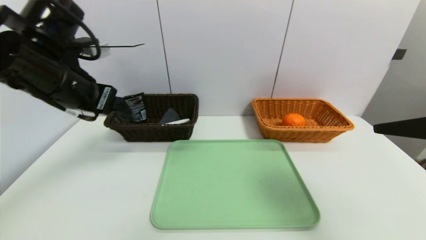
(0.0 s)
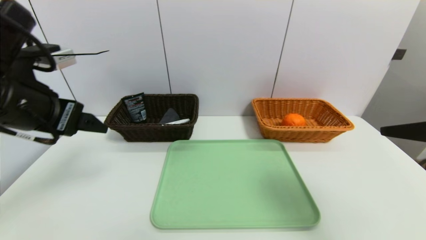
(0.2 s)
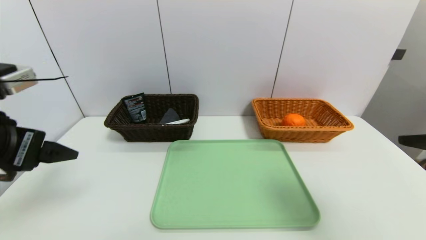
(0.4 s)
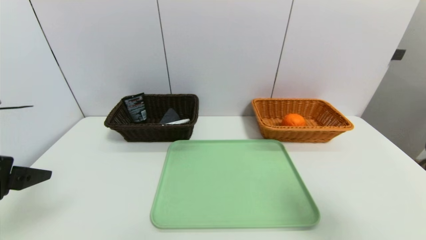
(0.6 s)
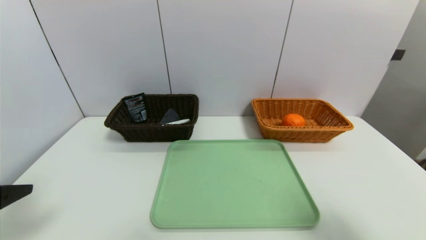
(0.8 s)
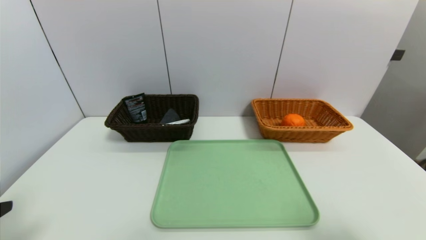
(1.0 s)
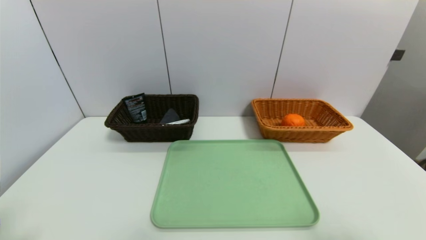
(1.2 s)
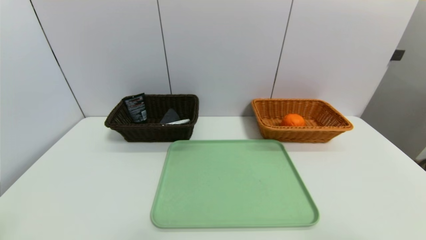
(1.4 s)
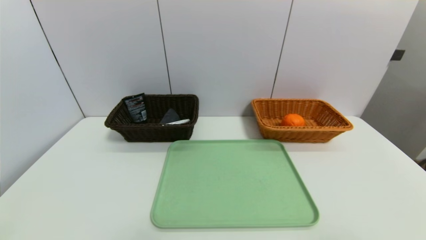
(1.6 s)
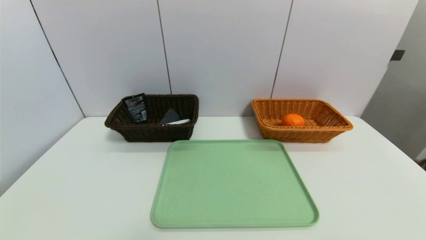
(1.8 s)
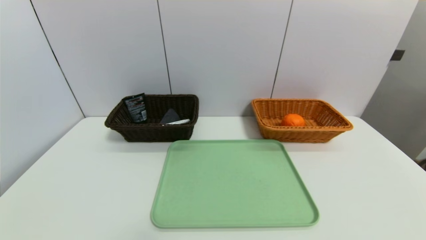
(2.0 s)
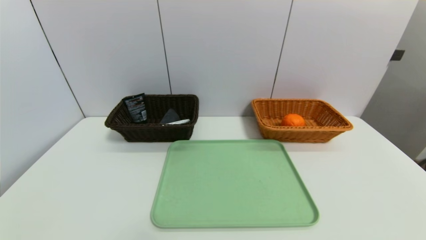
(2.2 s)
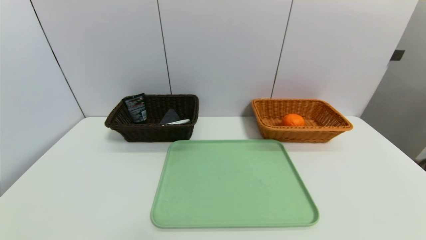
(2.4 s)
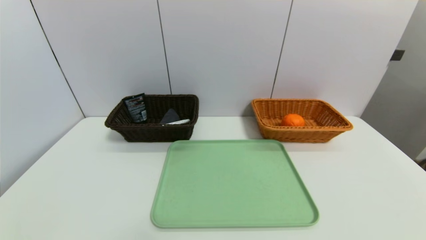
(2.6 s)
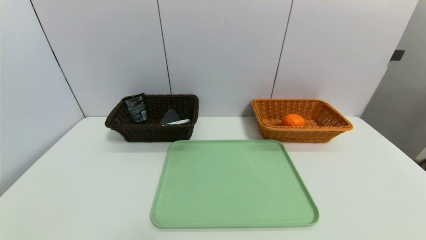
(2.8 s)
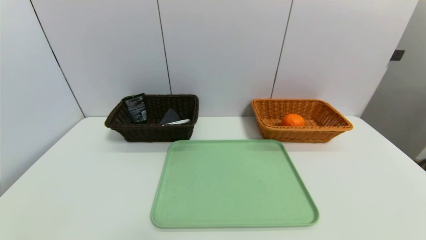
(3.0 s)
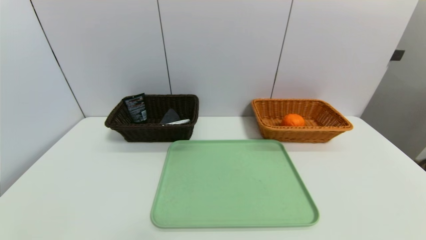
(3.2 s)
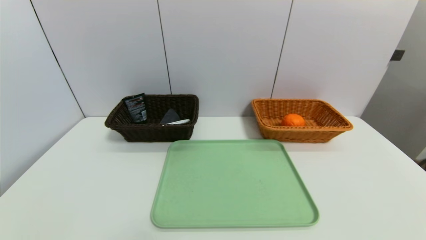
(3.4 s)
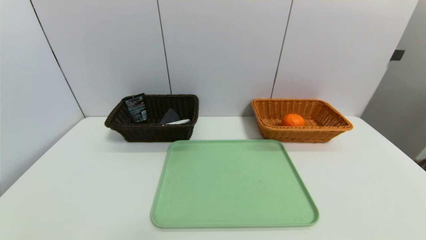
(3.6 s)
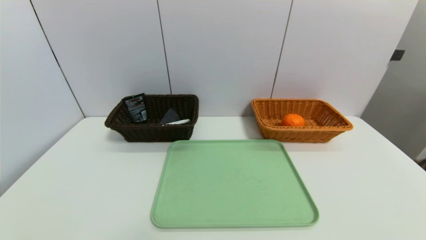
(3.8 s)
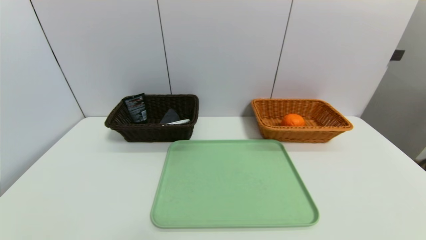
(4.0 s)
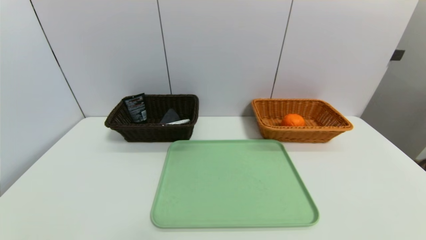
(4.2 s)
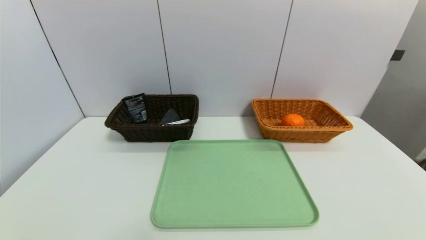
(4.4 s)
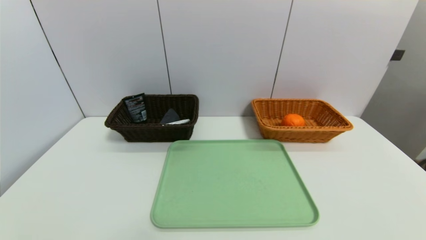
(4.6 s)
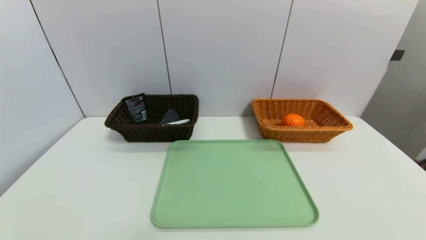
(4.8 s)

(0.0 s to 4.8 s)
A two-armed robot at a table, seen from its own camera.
Task of the whole recording: place the food in the right basket with the right gripper, and place the non food items in the left basket with the left gripper.
0.0 s - 1.6 s: The right gripper goes roughly 15 cm backward, while the left gripper goes approximately 30 cm backward and downward.

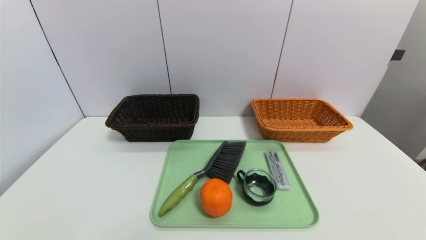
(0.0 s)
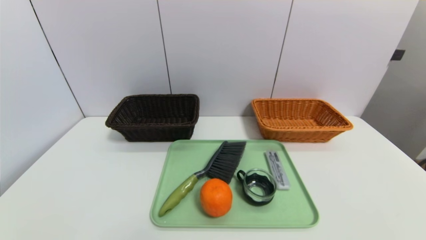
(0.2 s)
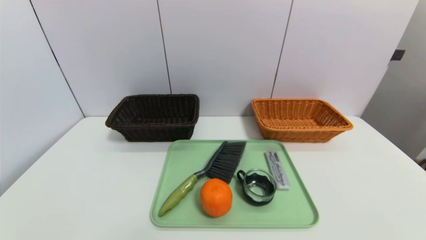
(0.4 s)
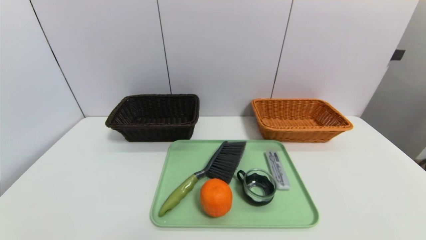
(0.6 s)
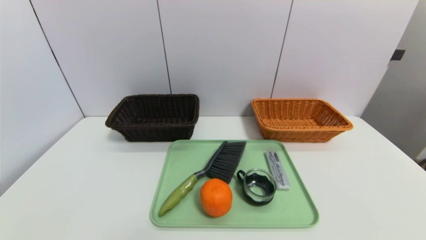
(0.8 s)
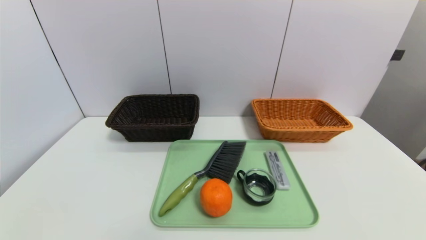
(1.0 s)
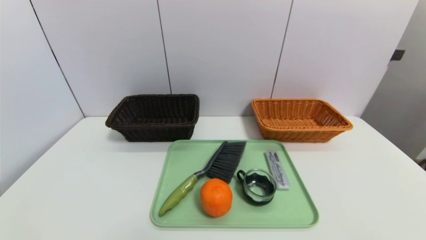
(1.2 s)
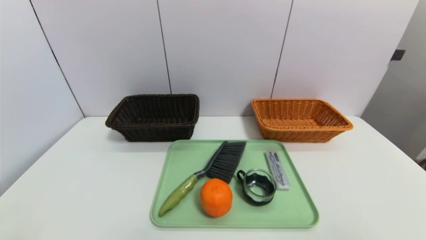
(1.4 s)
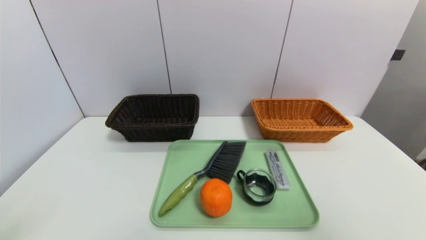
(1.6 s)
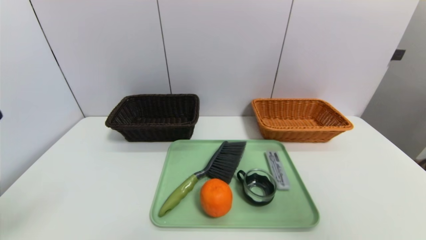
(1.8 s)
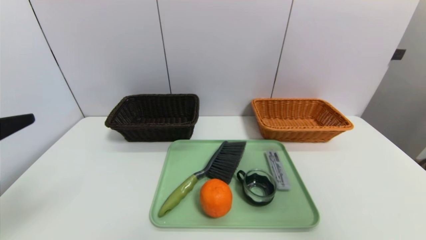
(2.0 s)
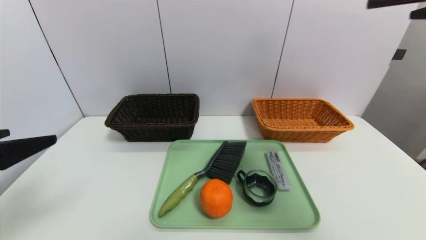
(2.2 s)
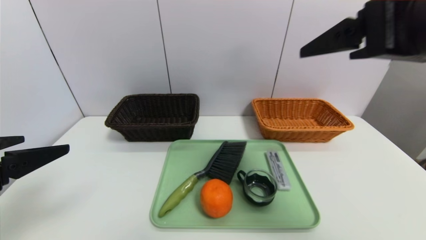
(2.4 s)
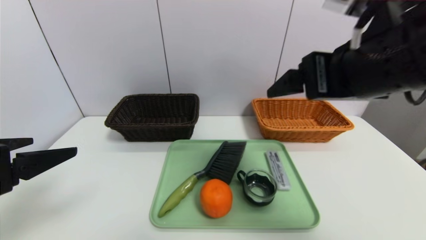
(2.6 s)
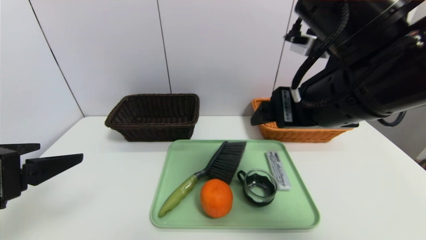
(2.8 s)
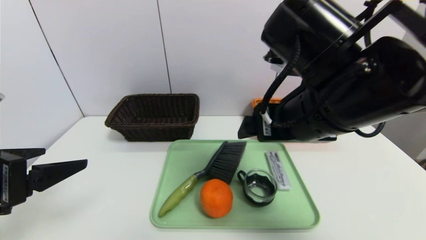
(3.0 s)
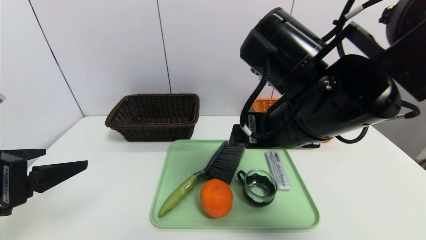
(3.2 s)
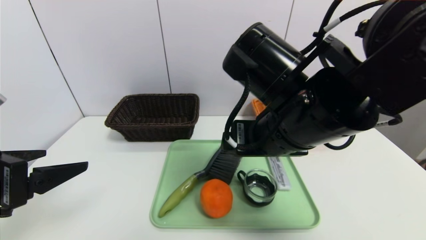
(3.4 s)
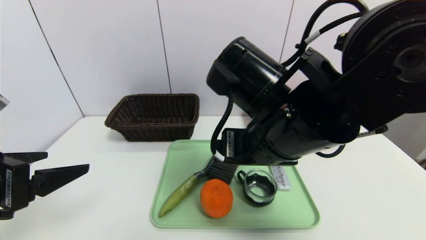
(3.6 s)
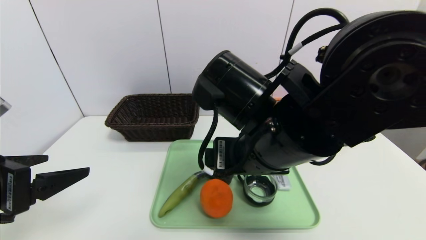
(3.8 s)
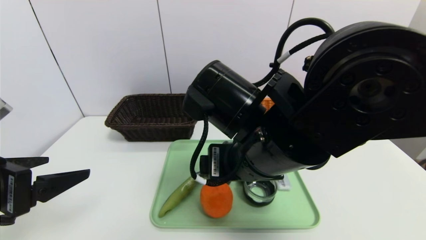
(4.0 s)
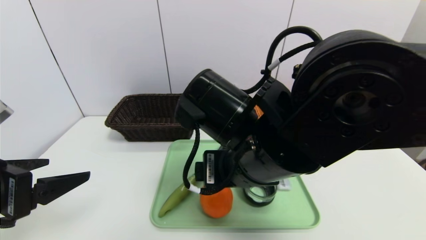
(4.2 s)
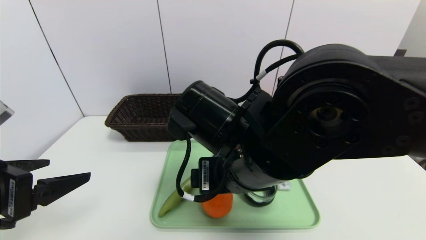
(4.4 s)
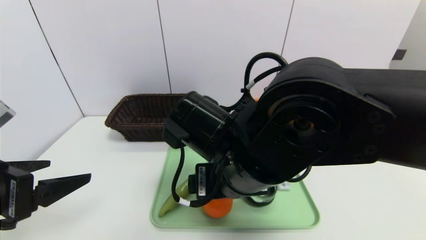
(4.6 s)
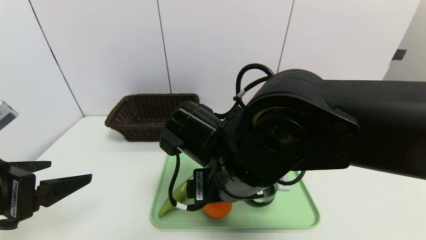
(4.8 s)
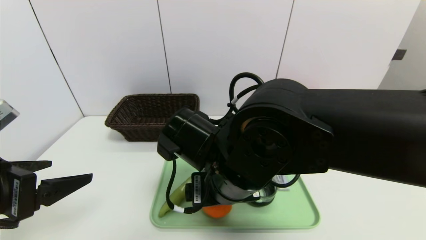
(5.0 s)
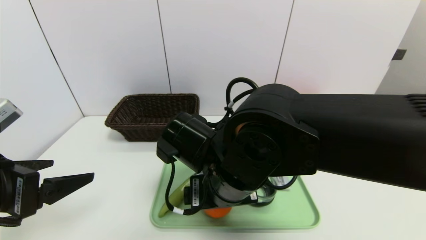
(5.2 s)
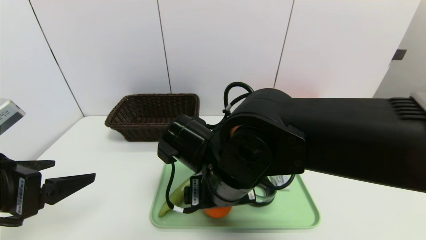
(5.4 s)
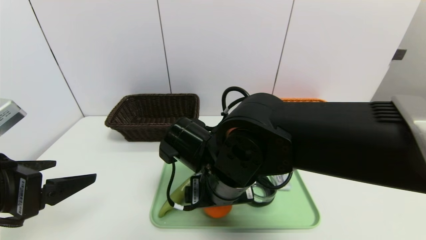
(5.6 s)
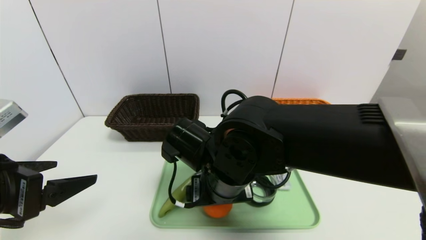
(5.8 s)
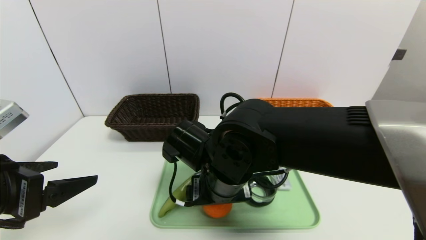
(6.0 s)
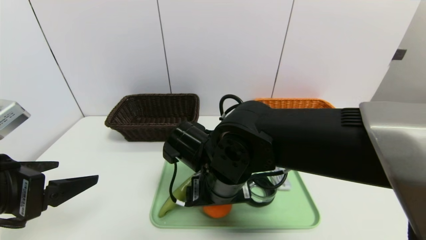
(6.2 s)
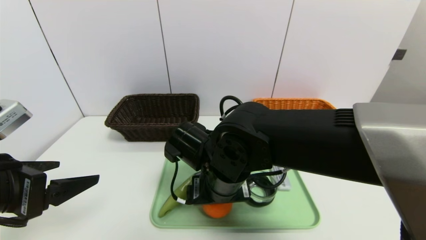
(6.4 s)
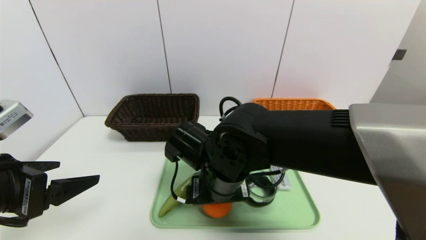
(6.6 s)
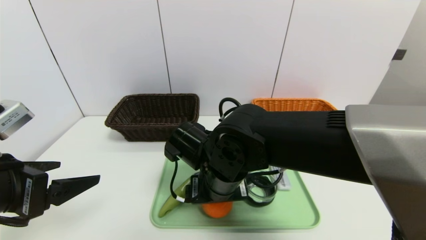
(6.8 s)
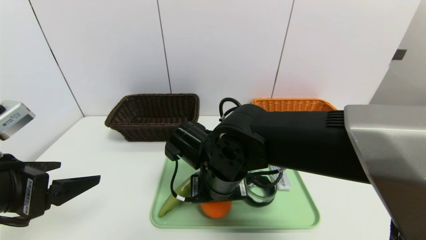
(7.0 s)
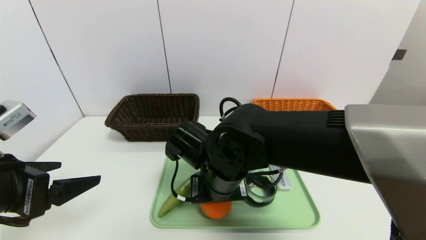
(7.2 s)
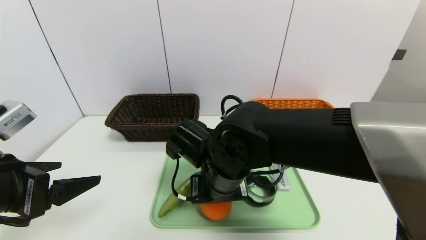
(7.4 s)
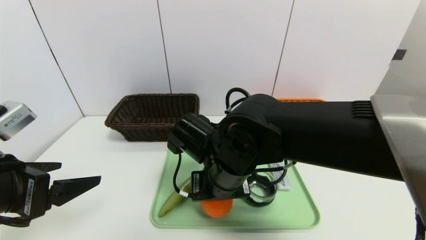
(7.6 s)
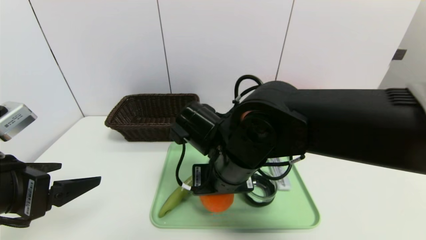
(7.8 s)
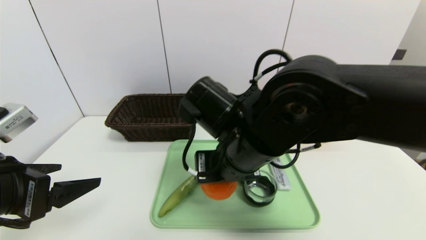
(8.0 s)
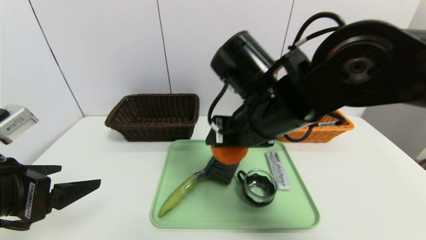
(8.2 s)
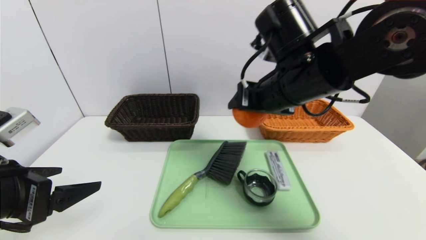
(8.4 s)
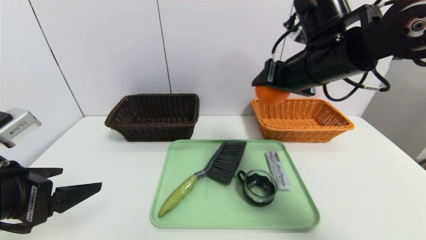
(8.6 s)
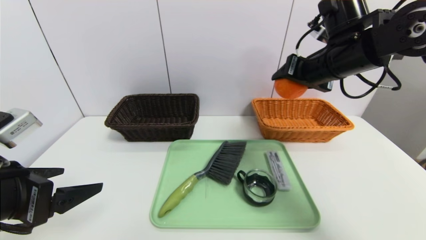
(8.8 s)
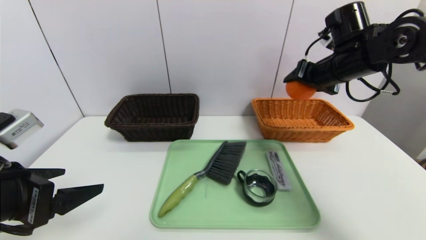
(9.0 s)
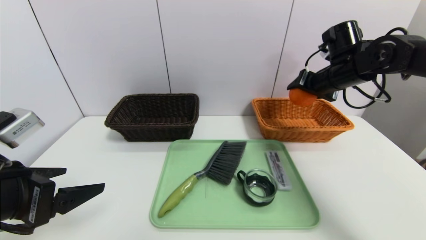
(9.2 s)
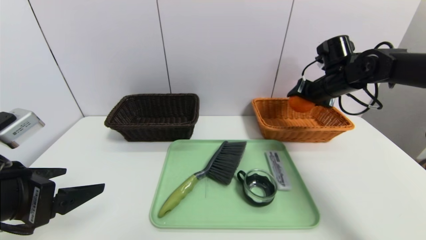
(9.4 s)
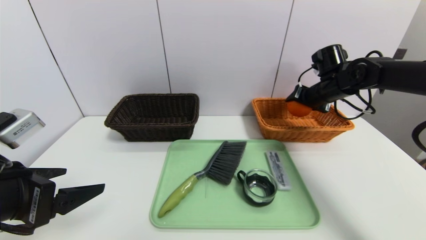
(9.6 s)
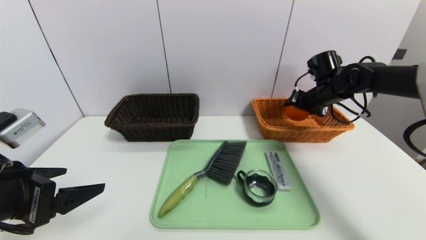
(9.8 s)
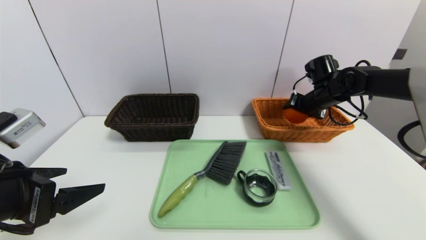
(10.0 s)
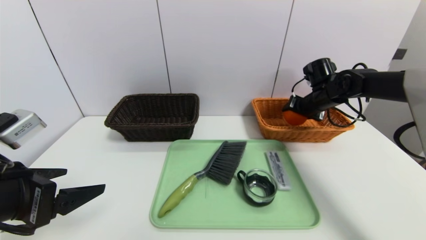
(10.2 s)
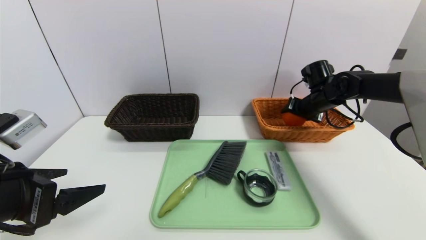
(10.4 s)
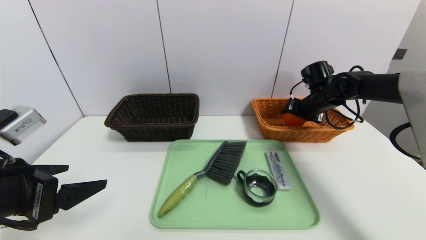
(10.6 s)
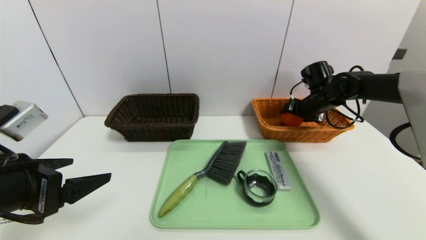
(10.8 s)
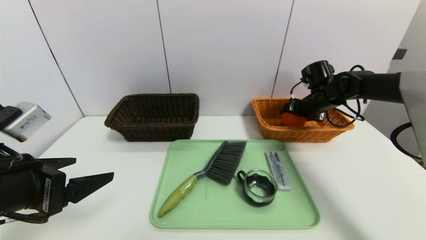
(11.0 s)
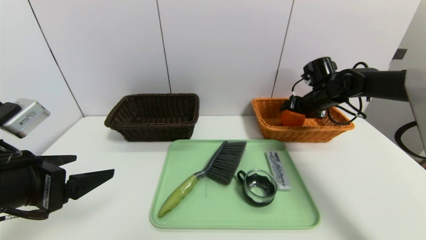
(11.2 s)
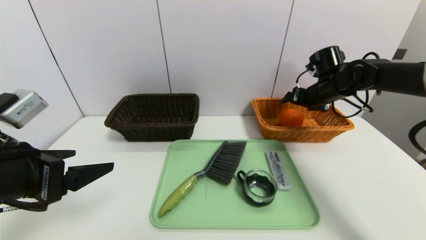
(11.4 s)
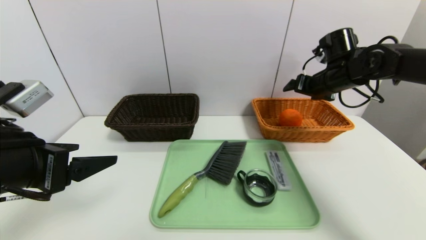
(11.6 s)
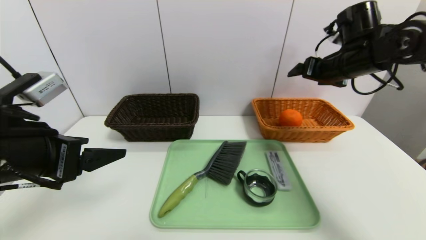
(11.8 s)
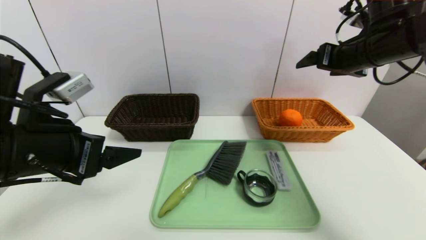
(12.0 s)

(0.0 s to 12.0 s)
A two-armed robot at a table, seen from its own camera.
Task of the whole recording: place the food in the right basket with the right gripper, and place the non food items in the left basket with the left gripper.
Step, 0.0 s - 11.4 s: Grasp the orange and put it in the right basket.
0.0 s - 1.6 s: The right gripper travels upward by roughly 30 cm.
1.6 s - 3.0 s: The left gripper is displaced forward by approximately 10 cm. Meanwhile the right gripper goes some 30 cm to the left and forward.
3.0 s - 4.4 s: The right gripper travels to the left and downward by roughly 10 cm.
4.4 s - 6.0 s: The right gripper goes some 5 cm downward.
6.0 s - 7.6 s: The right gripper closes up.
7.6 s - 9.0 s: The right gripper moves to the right, forward and upward, roughly 30 cm.
9.0 s - 10.4 s: The right gripper heads downward and forward, covering about 15 cm.
10.4 s - 12.0 s: The right gripper is displaced upward and backward by about 20 cm, and opens up; the left gripper ends up roughly 5 cm from where it was.
